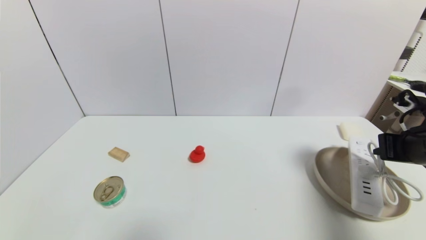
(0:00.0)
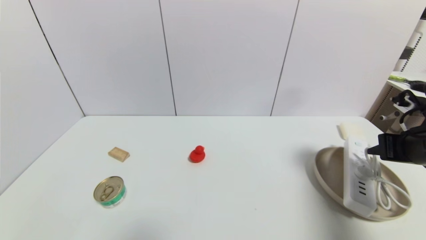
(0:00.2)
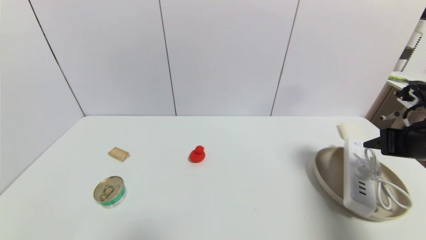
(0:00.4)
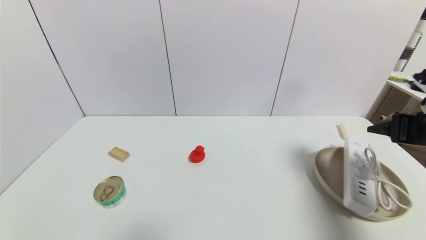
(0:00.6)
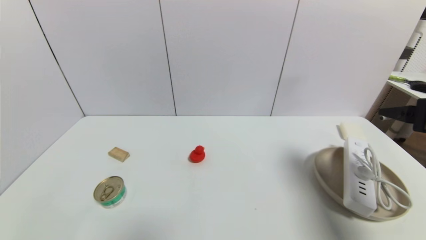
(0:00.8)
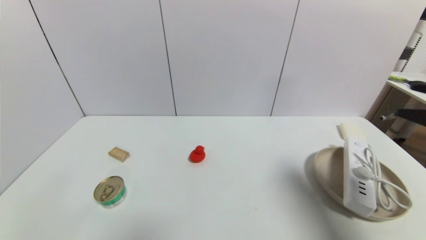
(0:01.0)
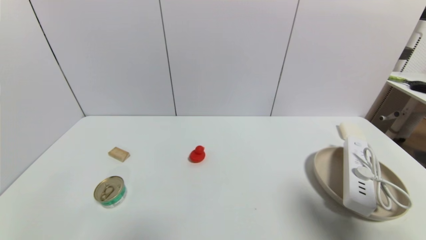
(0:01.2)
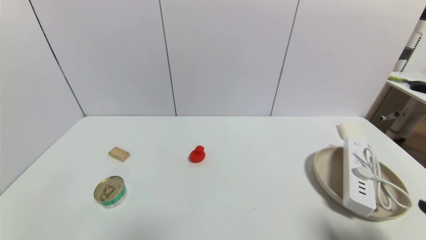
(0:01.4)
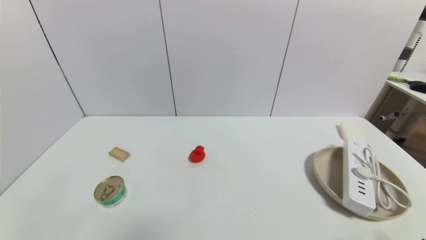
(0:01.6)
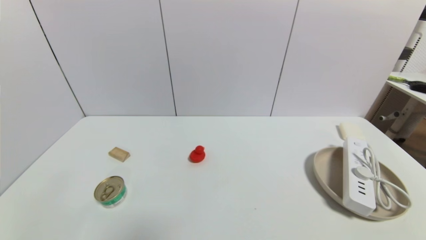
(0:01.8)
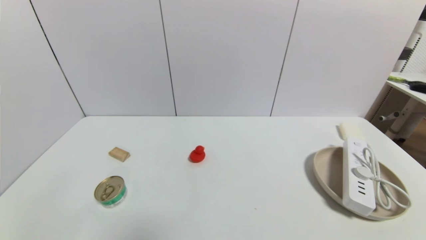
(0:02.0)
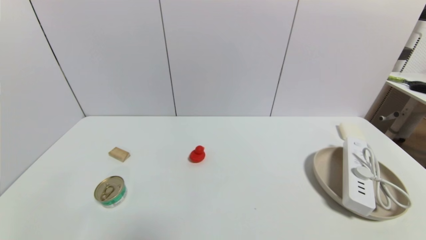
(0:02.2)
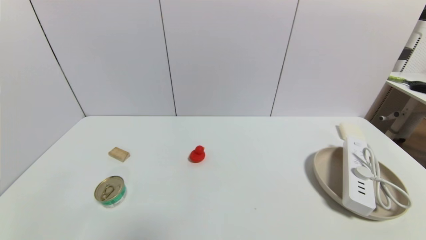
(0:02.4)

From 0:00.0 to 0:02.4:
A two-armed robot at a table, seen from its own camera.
Task of the whole recording: use a gripper to pick the target object and place on the brown plate.
From 0:00.0 to 0:01.2: The right gripper moves backward, roughly 15 cm, and opens its fingers.
From 0:01.2 to 0:02.4: The right gripper travels downward and backward by approximately 20 cm.
